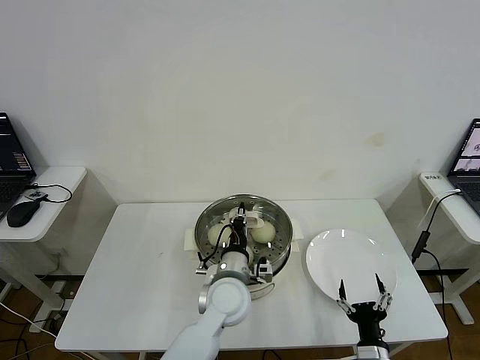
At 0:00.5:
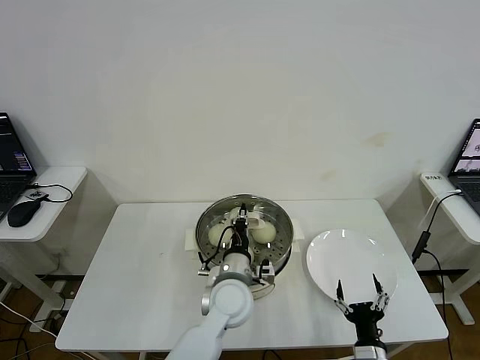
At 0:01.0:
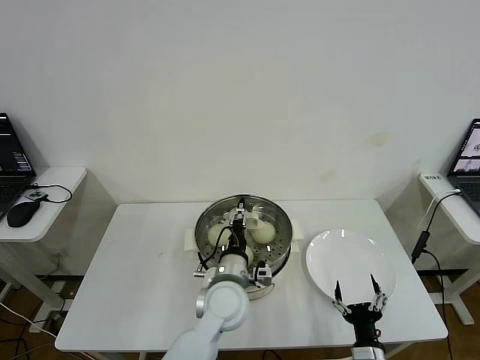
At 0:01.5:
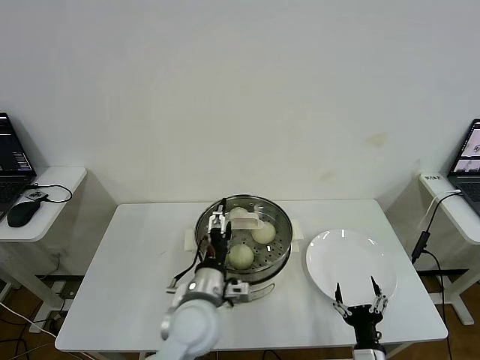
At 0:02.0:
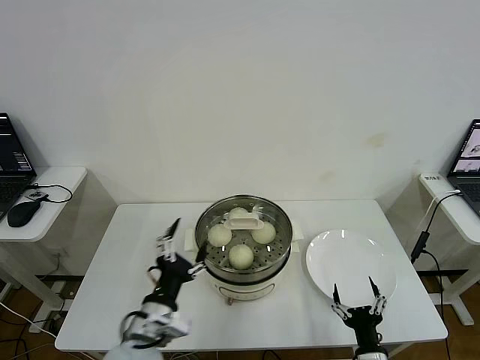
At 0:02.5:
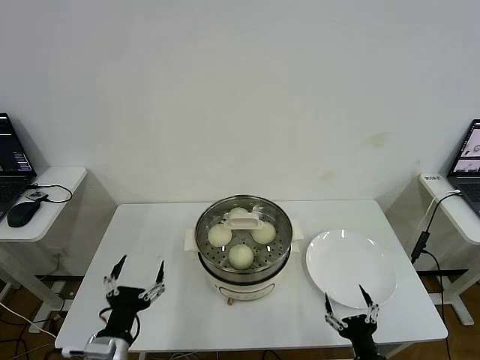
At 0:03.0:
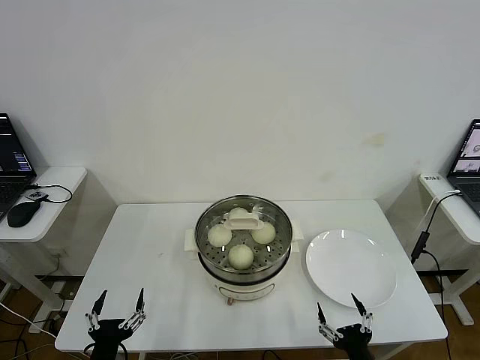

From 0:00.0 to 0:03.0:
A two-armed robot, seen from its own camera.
From 0:00.0 to 0:01.5: The left gripper ends up some 5 cm from where it was, and opens.
From 0:01.5 to 0:03.0: The right gripper shifts by approximately 5 cm, while the left gripper travels to the left, backward and downward by approximately 30 cm.
